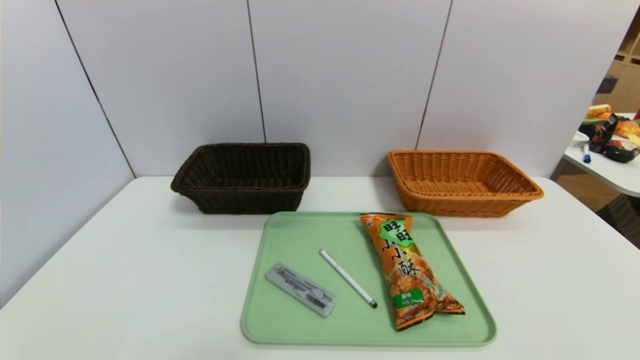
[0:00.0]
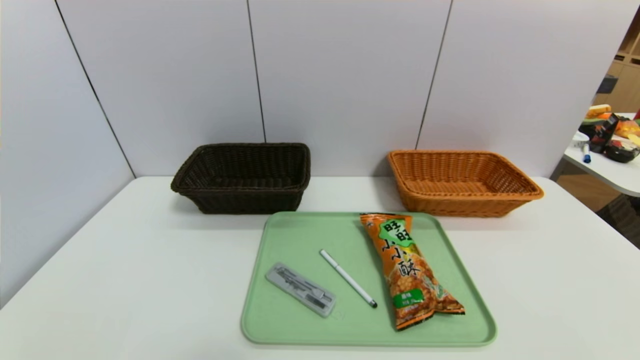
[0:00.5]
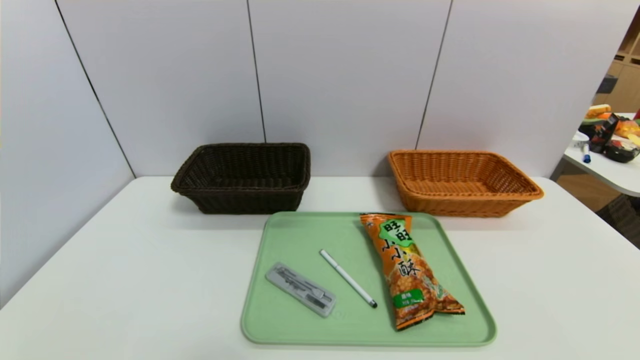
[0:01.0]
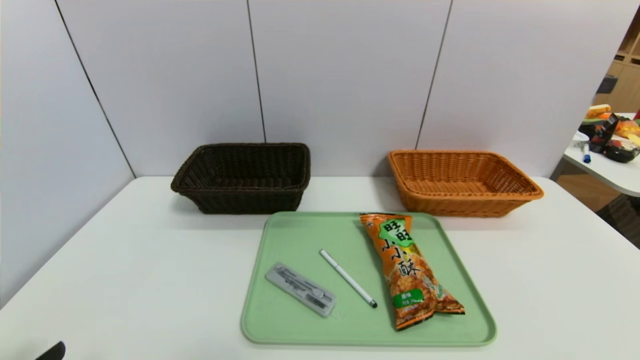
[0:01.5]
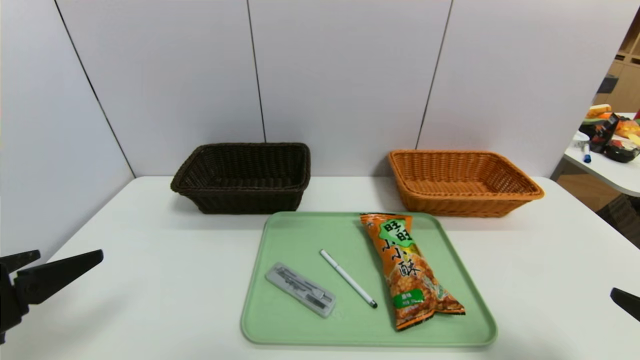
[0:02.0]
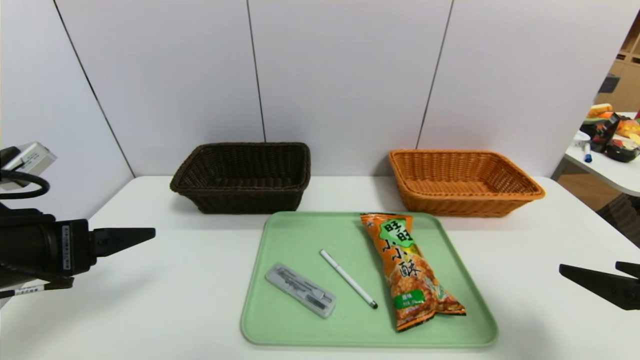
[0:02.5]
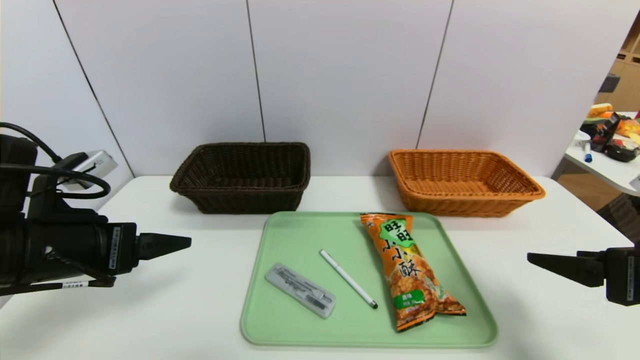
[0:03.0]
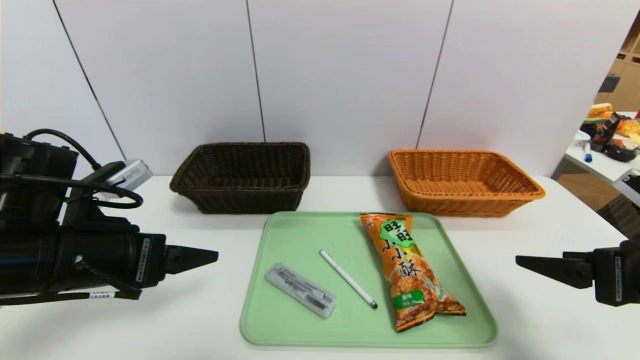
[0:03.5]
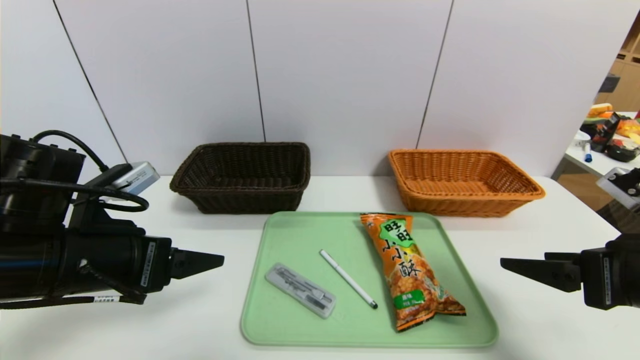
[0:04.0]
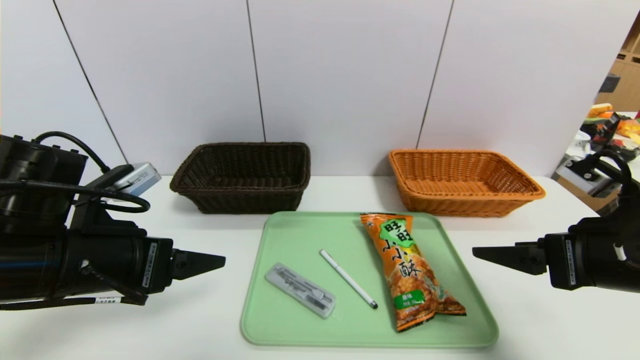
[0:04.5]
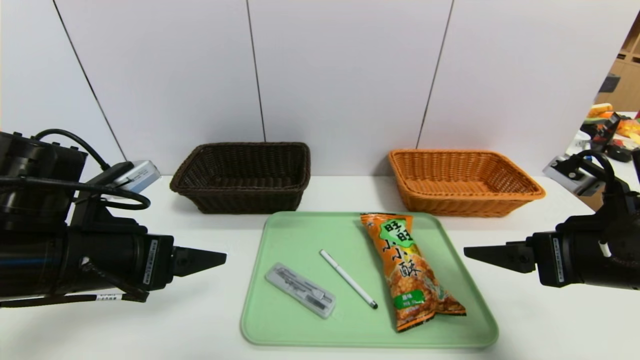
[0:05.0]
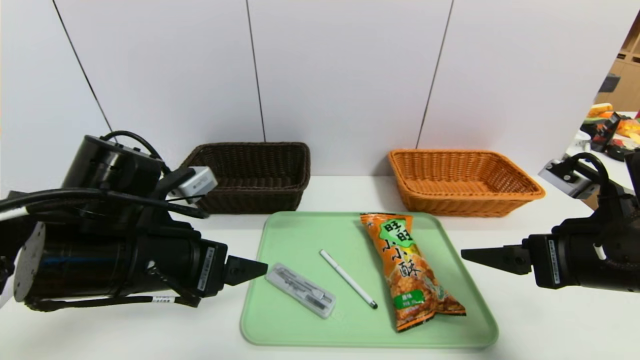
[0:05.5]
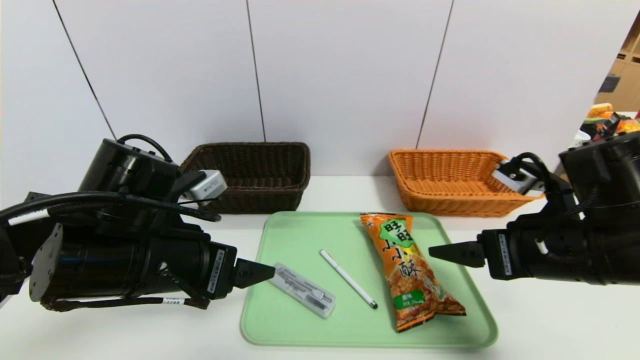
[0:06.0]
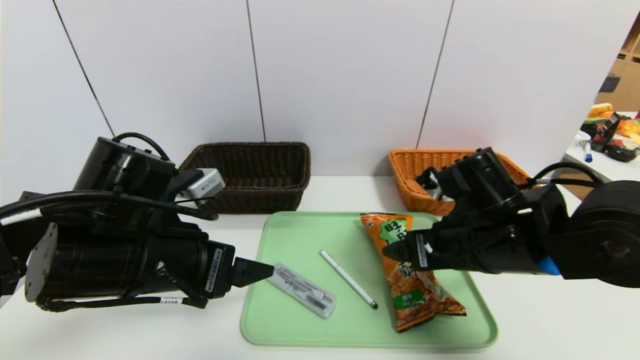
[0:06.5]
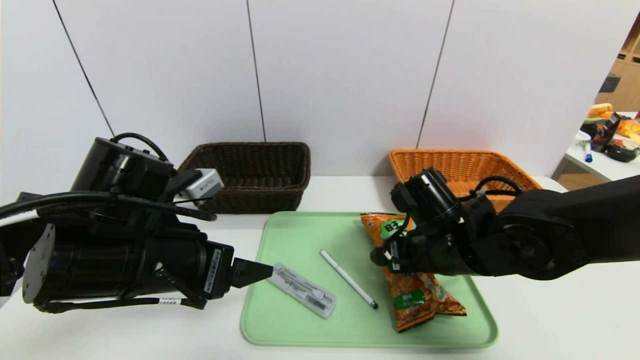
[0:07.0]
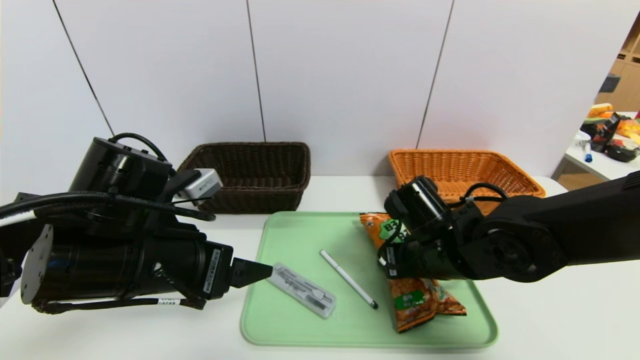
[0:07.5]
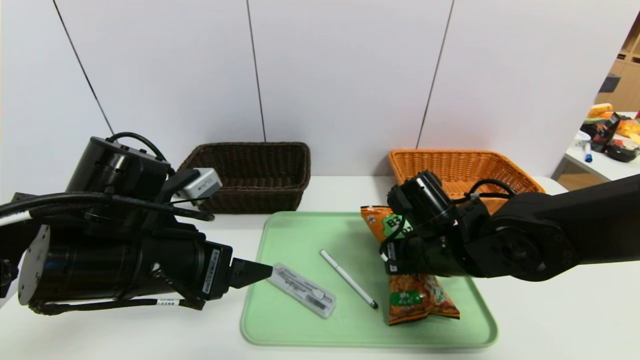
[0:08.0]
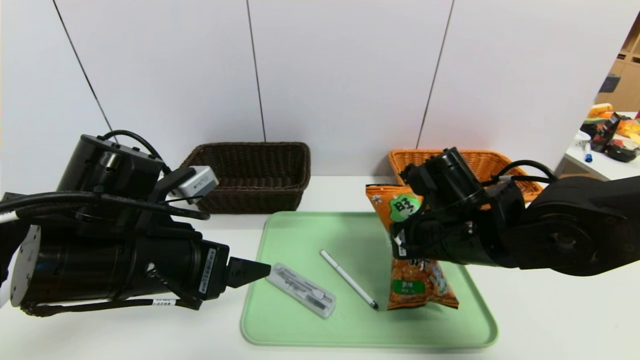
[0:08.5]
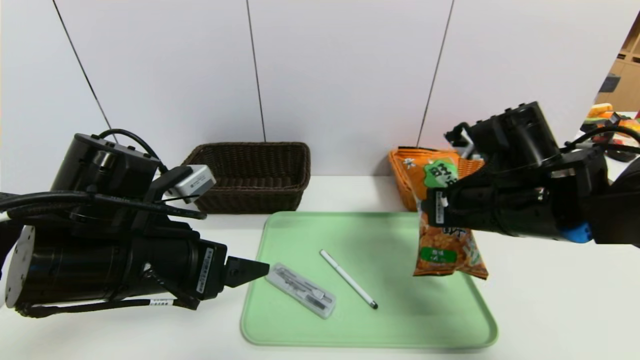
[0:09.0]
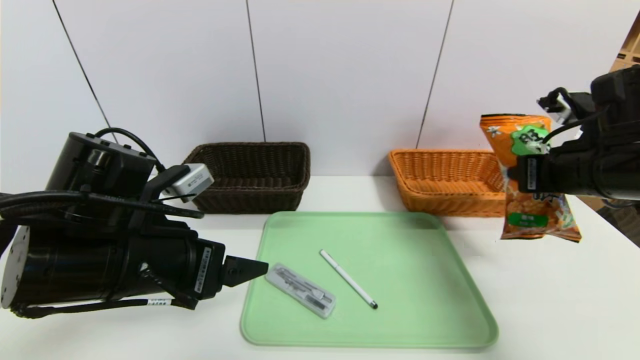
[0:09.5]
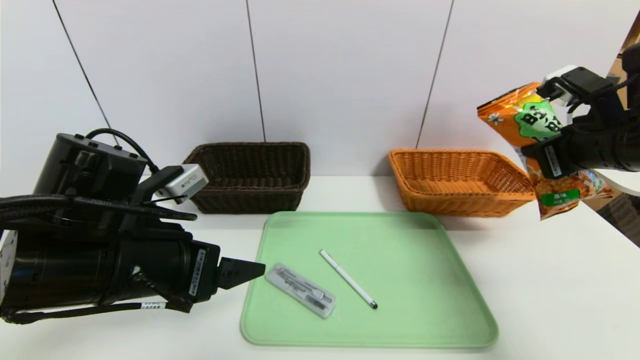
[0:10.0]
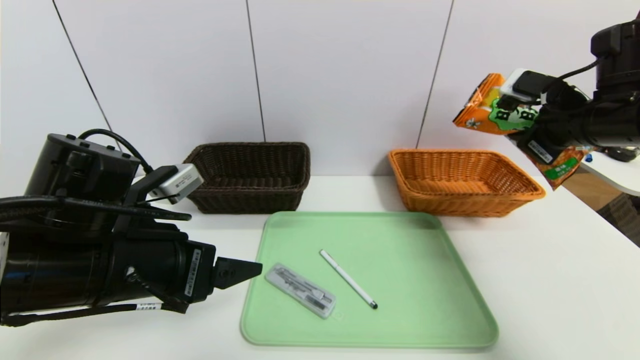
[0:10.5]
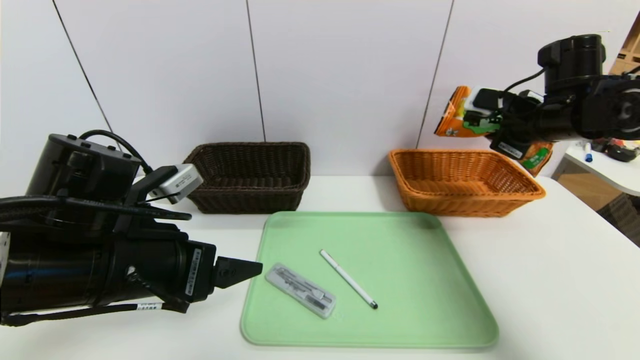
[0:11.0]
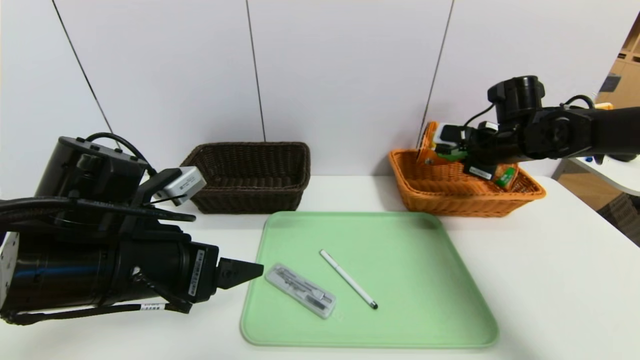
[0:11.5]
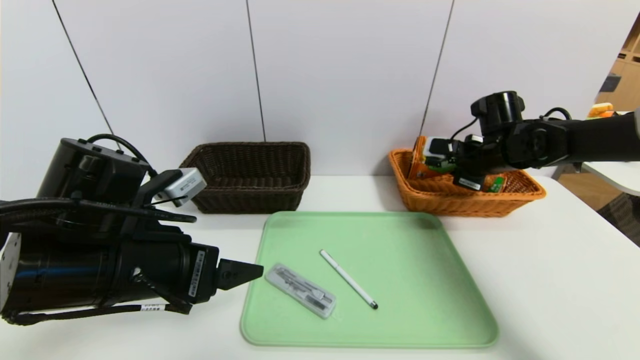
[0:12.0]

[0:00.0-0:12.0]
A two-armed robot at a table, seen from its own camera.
Task of the whole recording: place the food in the right basket with the right gripper, and place the non food items in the left basket with the left gripper.
0:00.0 to 0:02.0: Both grippers travel together upward and forward, about 15 cm.
0:02.0 to 0:04.0: The left gripper goes roughly 10 cm forward and to the right, while the right gripper shifts roughly 10 cm forward.
0:04.0 to 0:06.0: The right gripper shifts approximately 10 cm to the left and forward; the left gripper is displaced to the right by about 5 cm.
0:06.0 to 0:08.0: The right gripper goes approximately 15 cm to the left, downward and forward, and closes.
0:08.0 to 0:10.0: The right gripper shifts approximately 25 cm to the right and upward.
0:10.0 to 0:12.0: The right gripper shifts roughly 15 cm forward and downward.

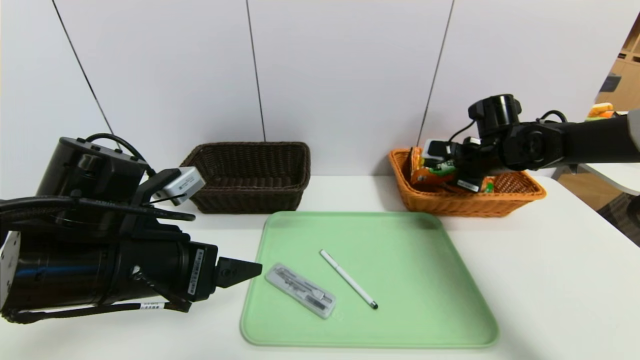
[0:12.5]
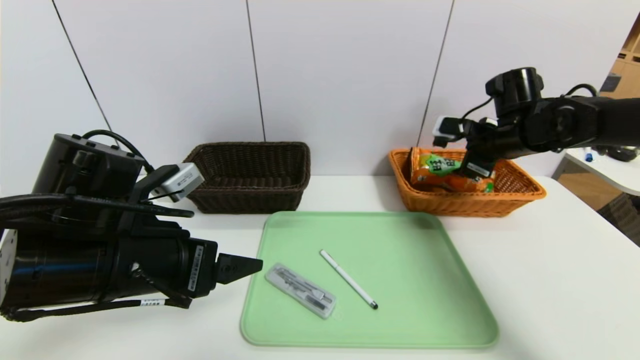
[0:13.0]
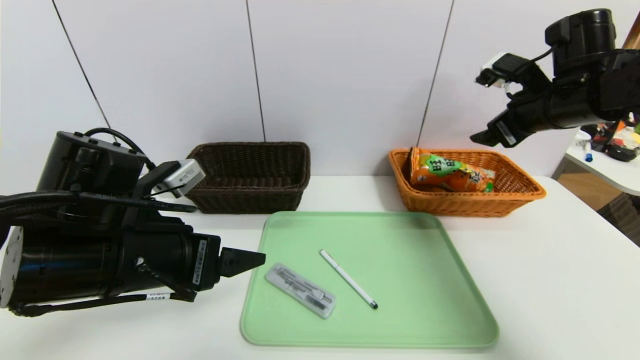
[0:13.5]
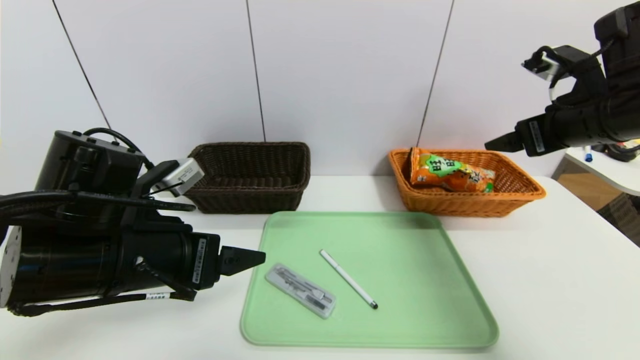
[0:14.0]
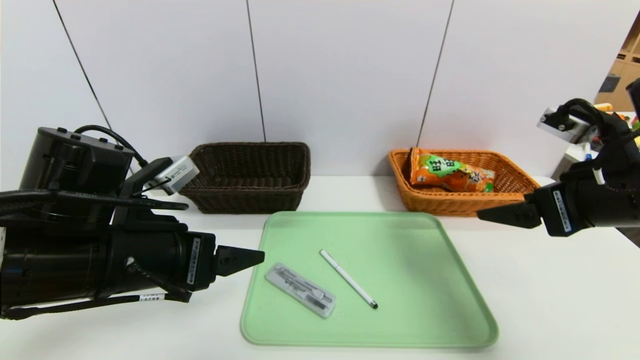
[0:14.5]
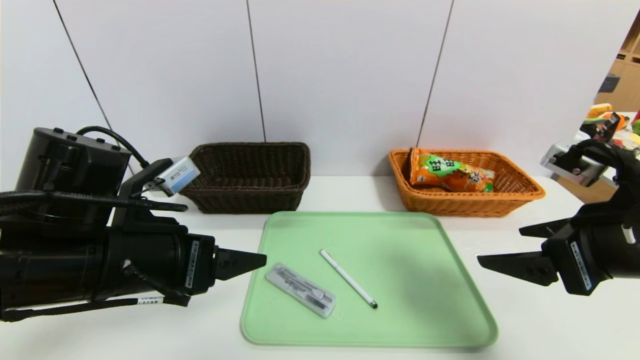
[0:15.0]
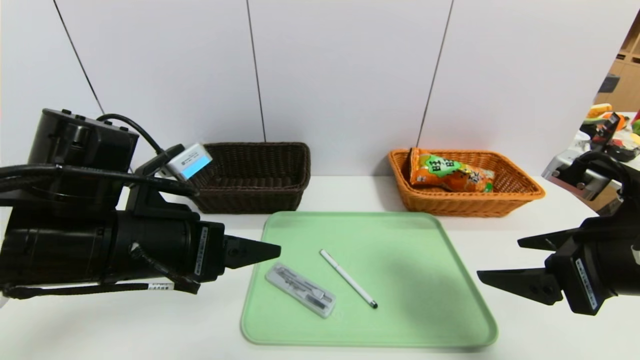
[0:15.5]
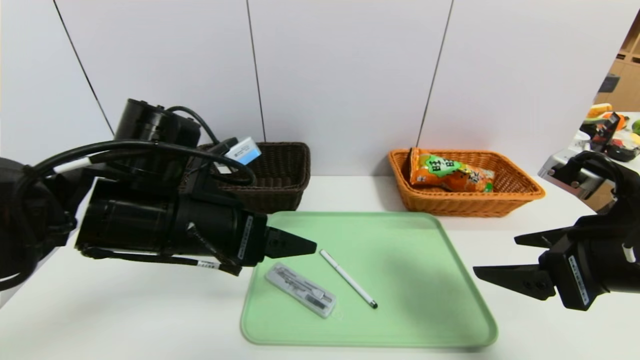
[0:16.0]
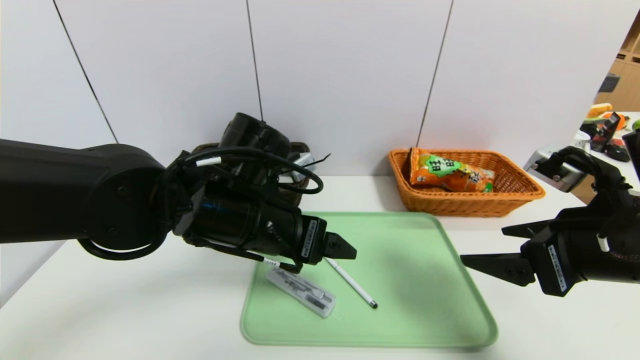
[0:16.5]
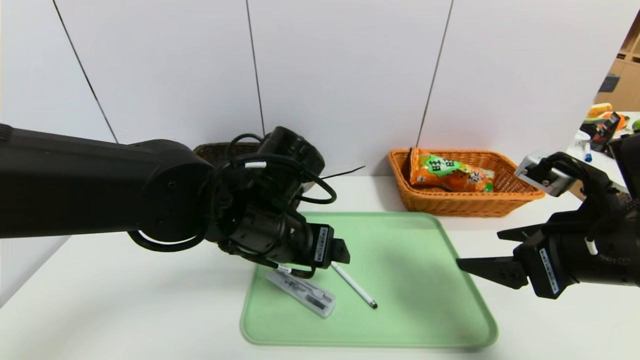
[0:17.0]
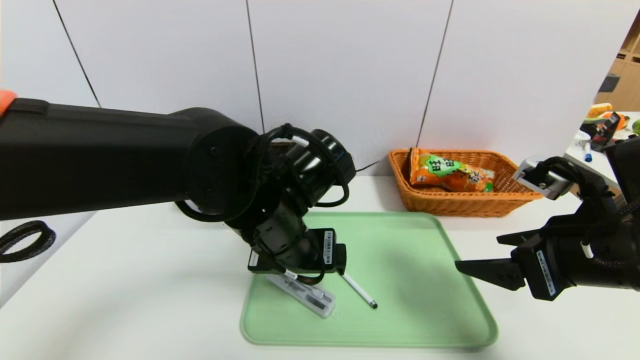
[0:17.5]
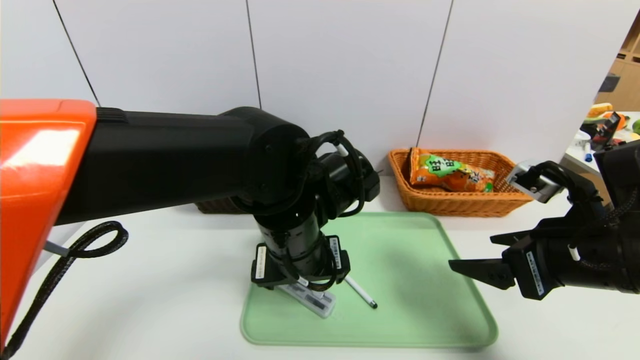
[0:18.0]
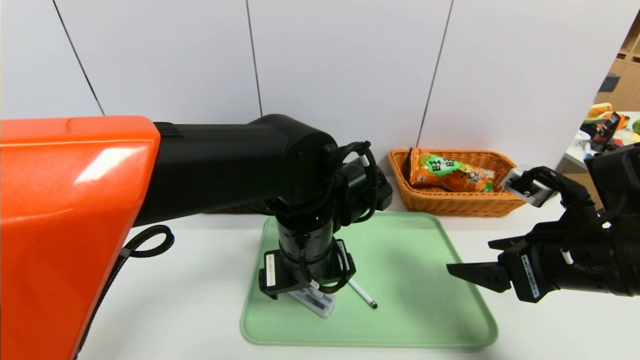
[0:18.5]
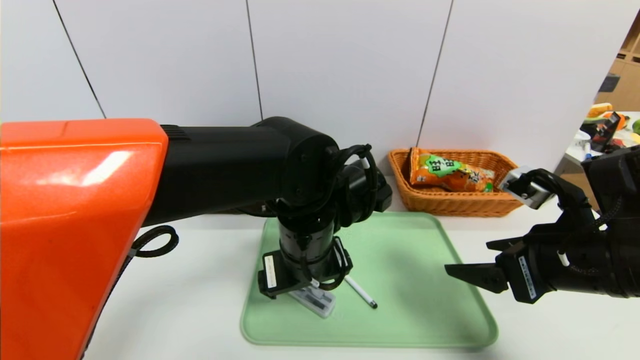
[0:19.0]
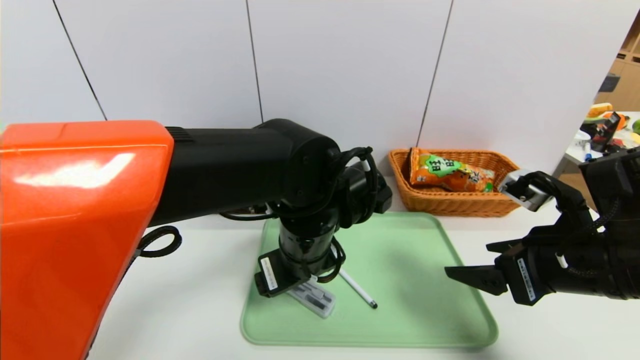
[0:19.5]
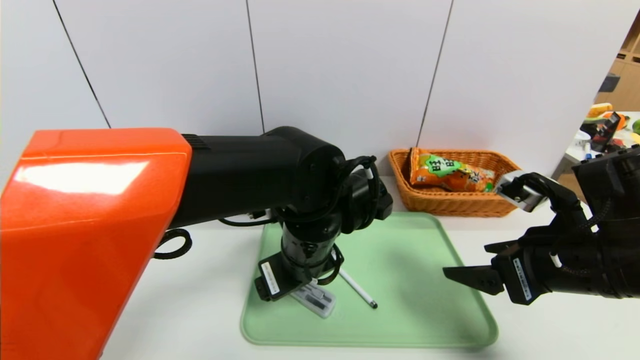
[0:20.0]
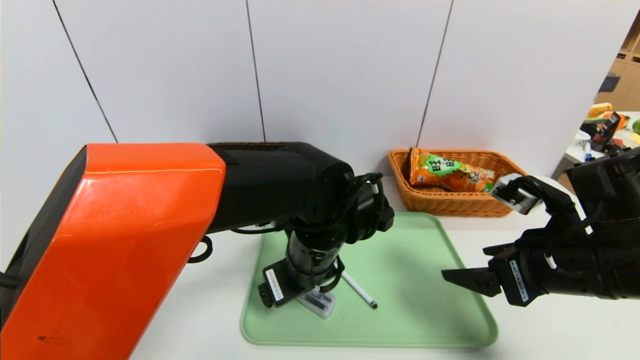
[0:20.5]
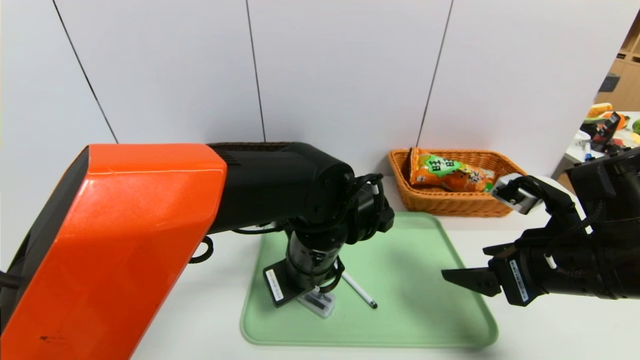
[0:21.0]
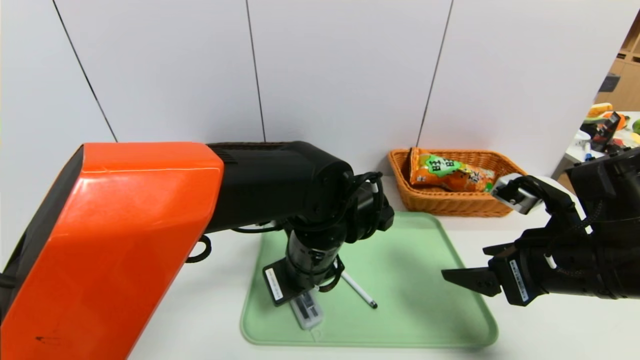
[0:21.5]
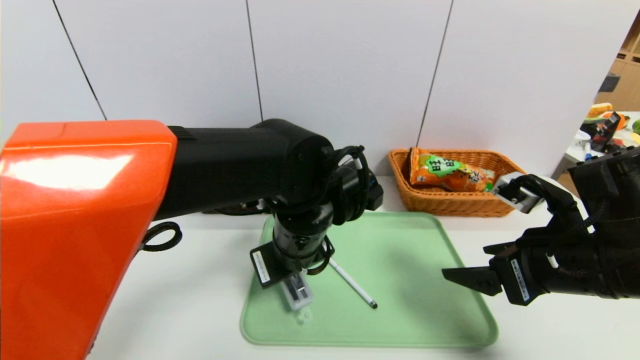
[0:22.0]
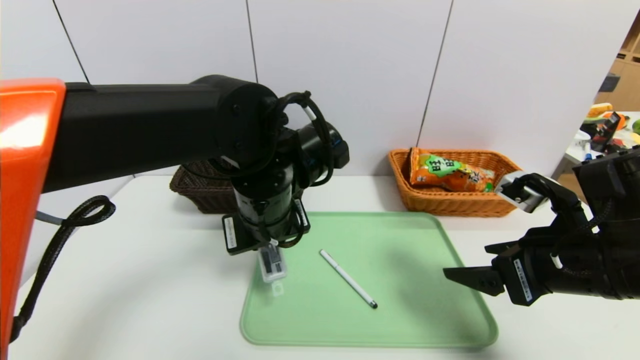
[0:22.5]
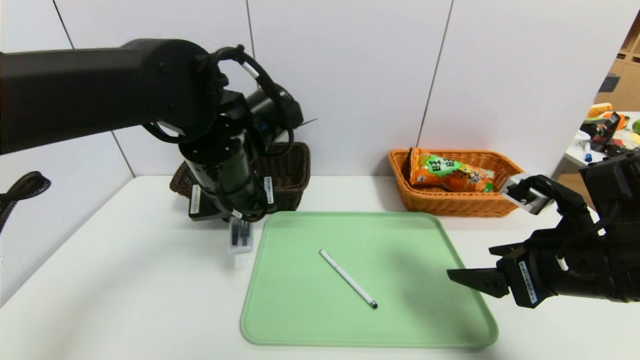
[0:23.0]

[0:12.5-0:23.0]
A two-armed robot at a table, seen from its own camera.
Task of the whole recording: place the food in the right basket with the right gripper, and place the non food items in the left basket with the left gripper.
0:12.5 to 0:14.5: The right gripper shifts approximately 20 cm backward, and opens.
0:14.5 to 0:16.5: The right gripper changes place by some 5 cm. Meanwhile the left gripper heads to the right and forward, covering some 10 cm.
0:16.5 to 0:19.0: The left gripper is displaced to the right by roughly 5 cm.
0:21.0 to 0:23.0: The left gripper moves to the left and upward, some 15 cm, and closes up.
